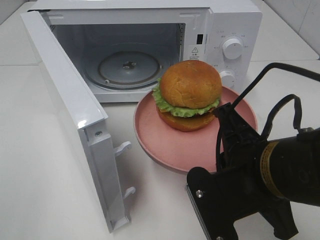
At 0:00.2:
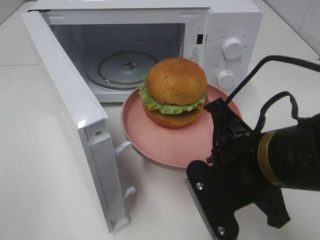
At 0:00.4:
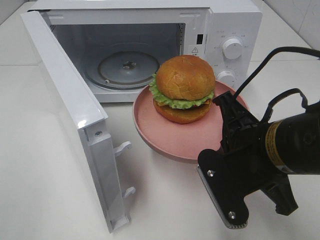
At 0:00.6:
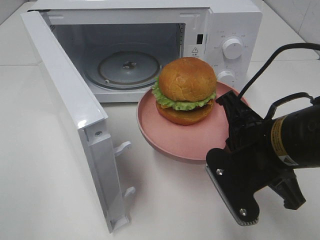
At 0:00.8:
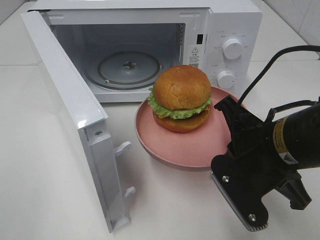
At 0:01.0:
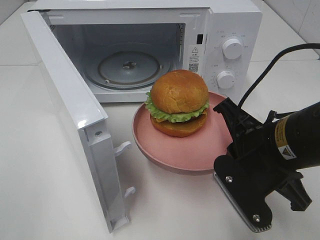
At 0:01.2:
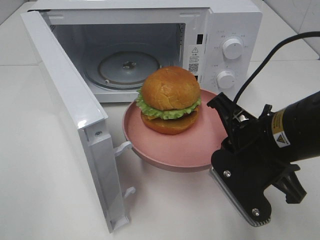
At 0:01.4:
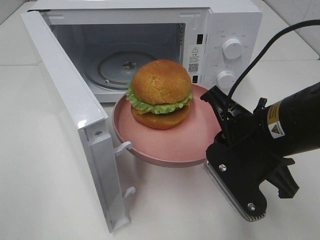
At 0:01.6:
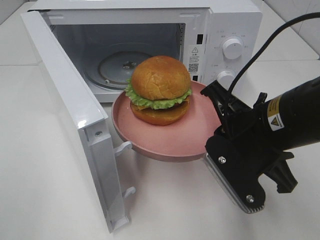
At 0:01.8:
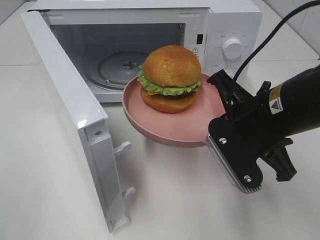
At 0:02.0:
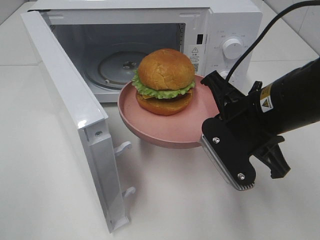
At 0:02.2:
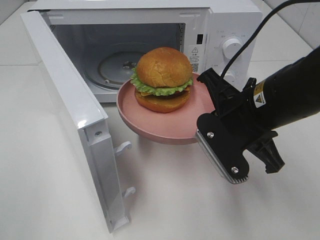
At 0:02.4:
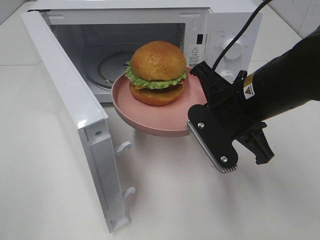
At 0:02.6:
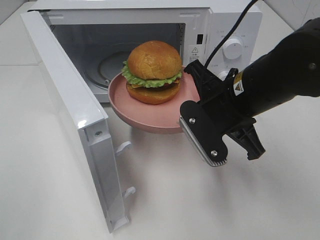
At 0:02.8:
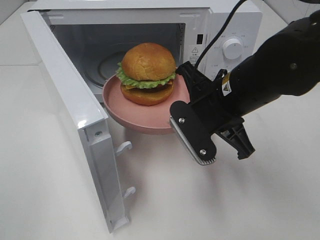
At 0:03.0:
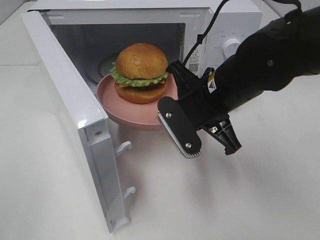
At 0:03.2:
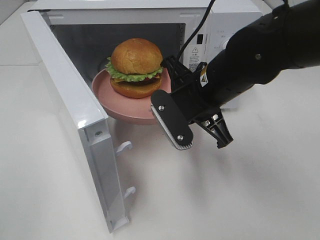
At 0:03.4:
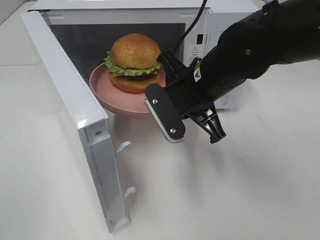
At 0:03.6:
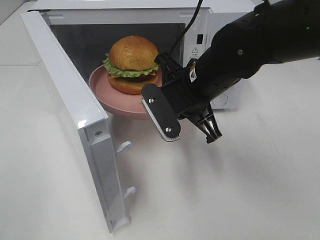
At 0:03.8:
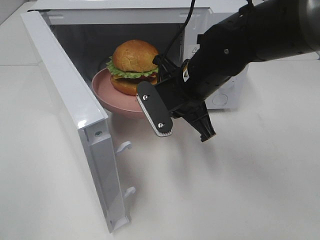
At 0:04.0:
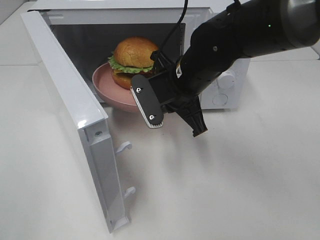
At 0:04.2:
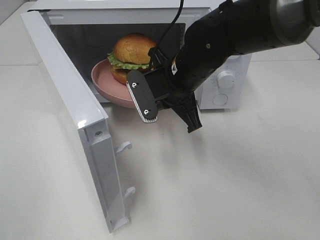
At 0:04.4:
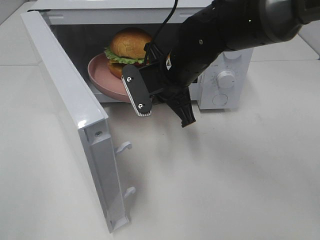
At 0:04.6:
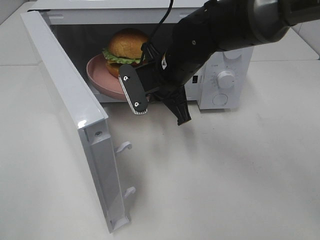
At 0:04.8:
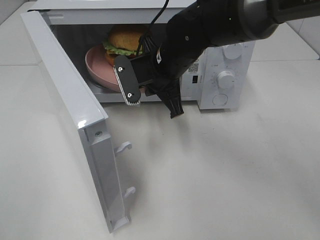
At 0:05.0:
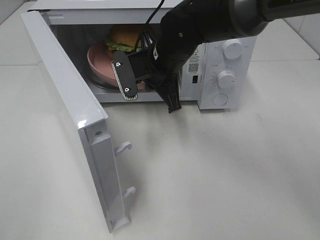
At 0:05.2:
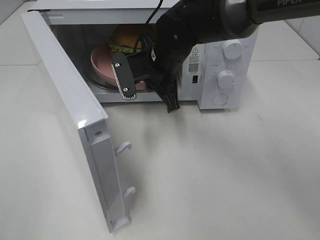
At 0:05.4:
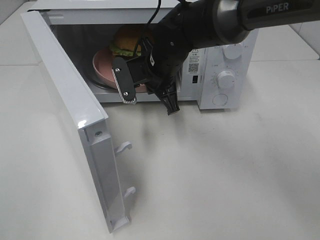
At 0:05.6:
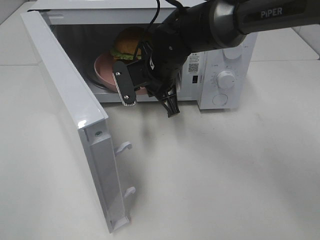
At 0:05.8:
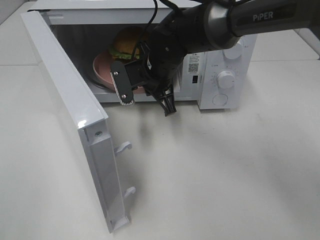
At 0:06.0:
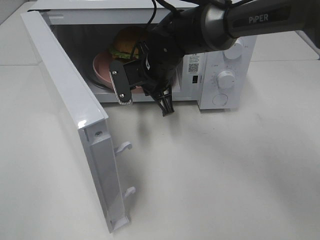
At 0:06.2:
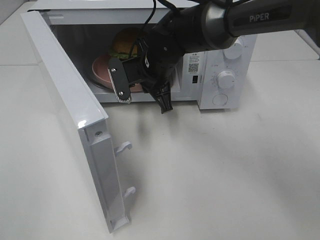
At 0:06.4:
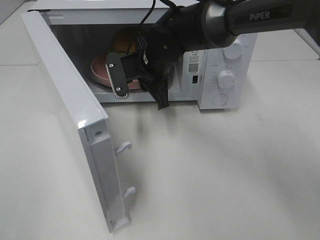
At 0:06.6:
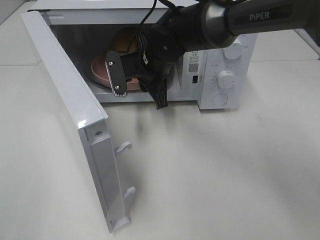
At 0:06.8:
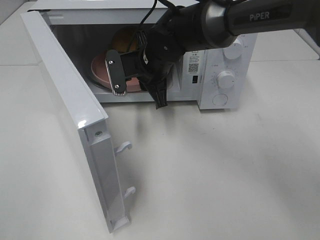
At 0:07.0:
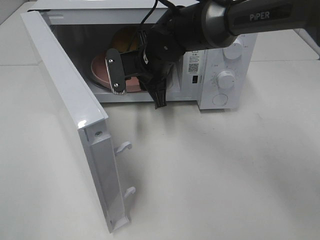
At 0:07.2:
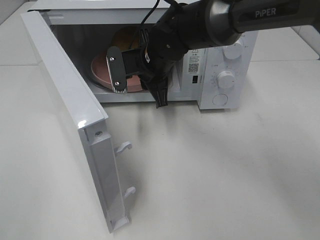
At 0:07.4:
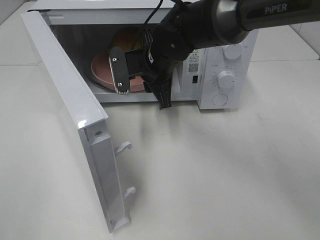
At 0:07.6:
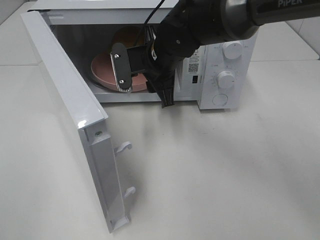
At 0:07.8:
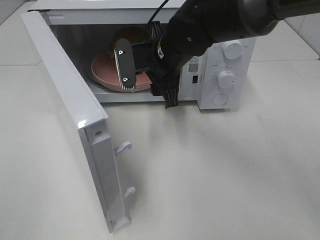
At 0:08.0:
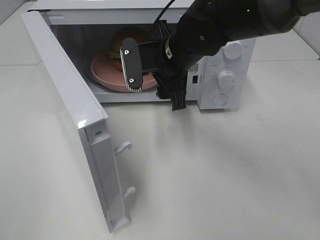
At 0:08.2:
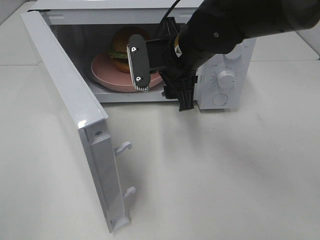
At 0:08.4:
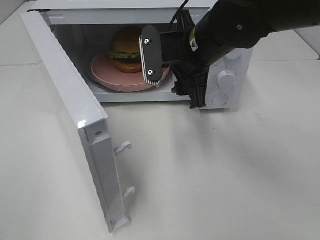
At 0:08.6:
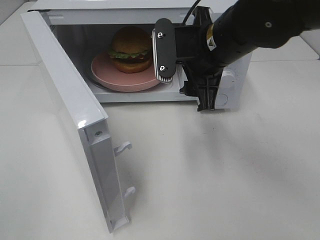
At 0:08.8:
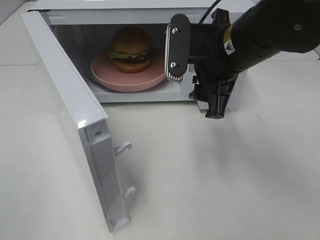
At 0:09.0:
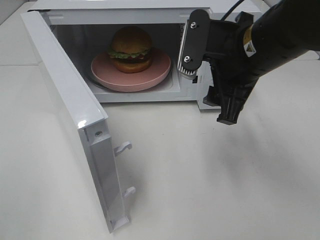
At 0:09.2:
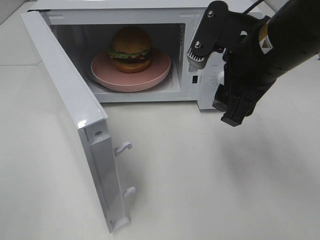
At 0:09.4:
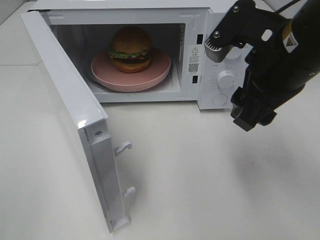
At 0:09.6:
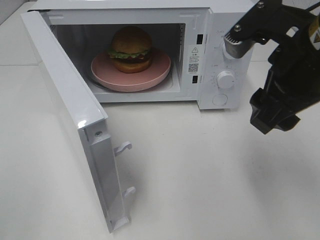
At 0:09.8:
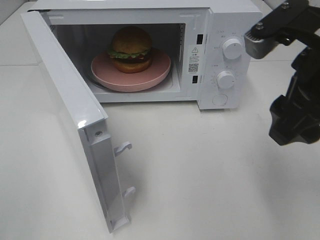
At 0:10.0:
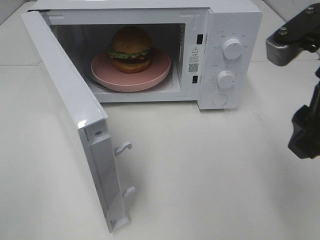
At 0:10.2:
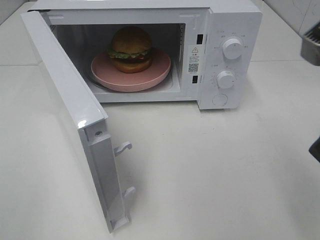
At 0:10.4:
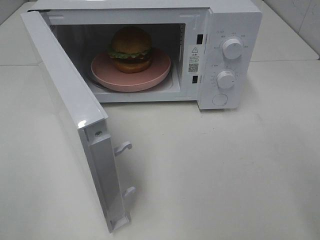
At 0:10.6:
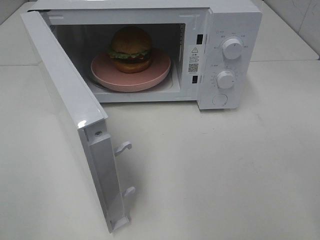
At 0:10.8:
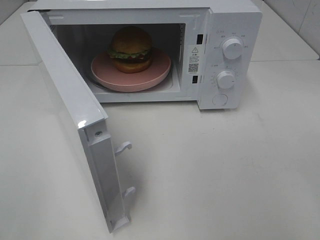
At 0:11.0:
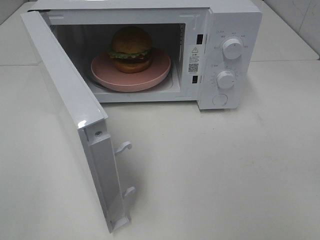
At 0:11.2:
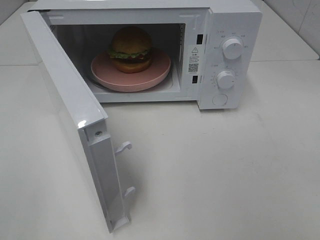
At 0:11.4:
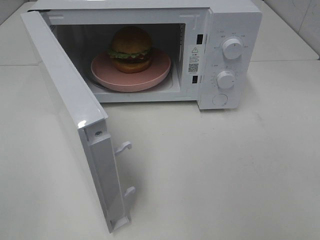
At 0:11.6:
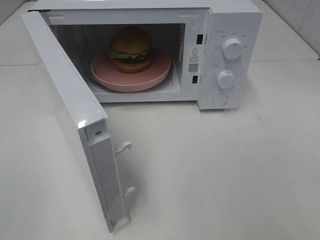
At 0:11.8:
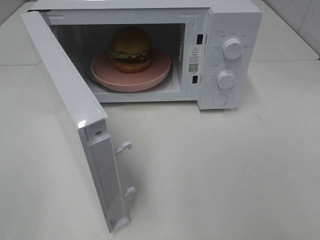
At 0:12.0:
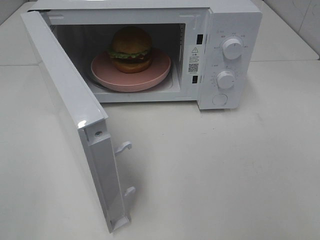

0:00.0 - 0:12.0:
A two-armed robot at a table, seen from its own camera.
Task of the whole recording: Heat the burger.
Step, 0:00.0 - 0:06.2: Right hand: place the plate in the microwave.
0:00.0 - 0:01.6: The right gripper moves forward, approximately 5 cm.
0:01.6 - 0:03.0: The right gripper heads forward, covering some 5 cm.
0:03.0 - 0:04.4: The right gripper moves forward and to the left, approximately 10 cm.
0:04.4 - 0:06.0: The right gripper moves forward, some 5 cm.
0:06.0 - 0:07.6: The right gripper opens.
0:07.6 - 0:09.0: The right gripper is displaced backward, to the right and upward by about 15 cm.
0:09.0 - 0:10.4: The right gripper is displaced backward, to the right and upward by roughly 20 cm.

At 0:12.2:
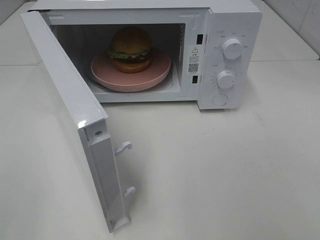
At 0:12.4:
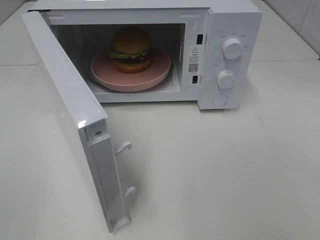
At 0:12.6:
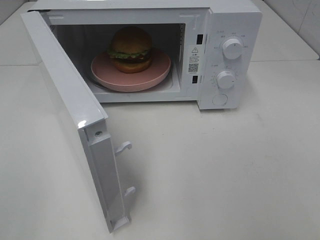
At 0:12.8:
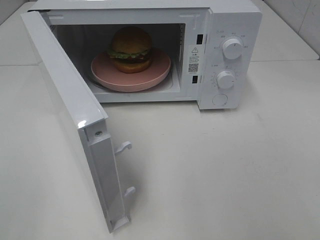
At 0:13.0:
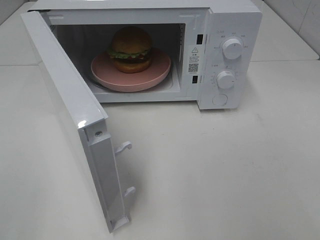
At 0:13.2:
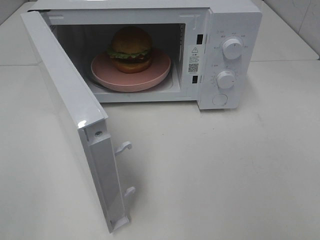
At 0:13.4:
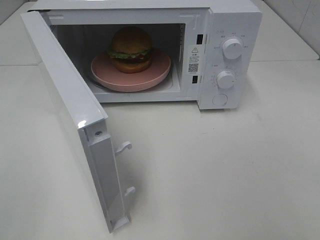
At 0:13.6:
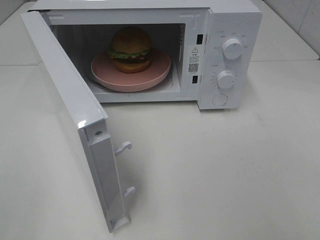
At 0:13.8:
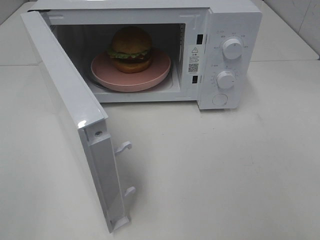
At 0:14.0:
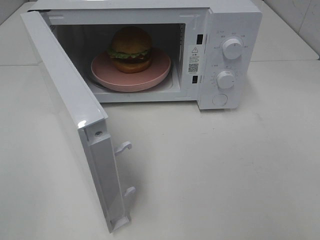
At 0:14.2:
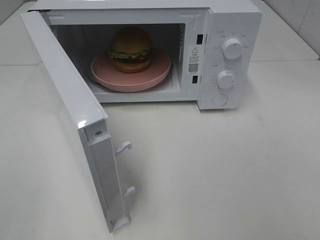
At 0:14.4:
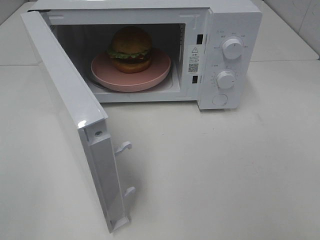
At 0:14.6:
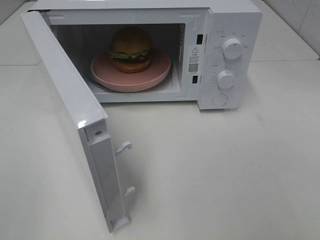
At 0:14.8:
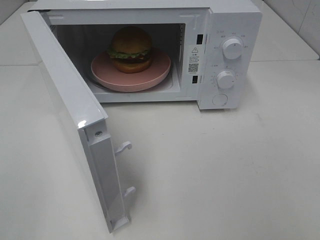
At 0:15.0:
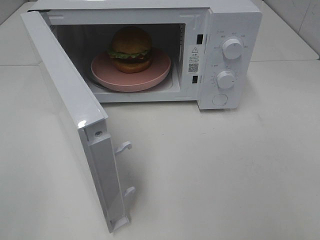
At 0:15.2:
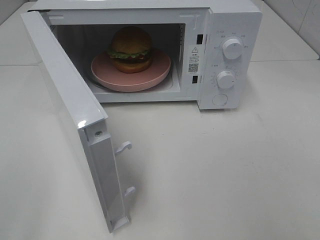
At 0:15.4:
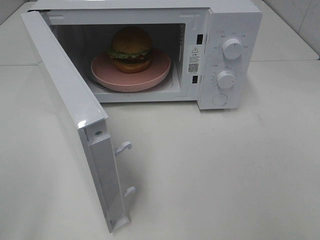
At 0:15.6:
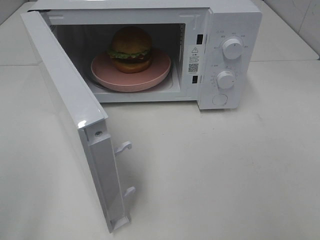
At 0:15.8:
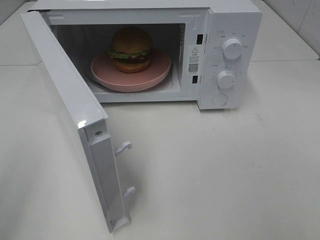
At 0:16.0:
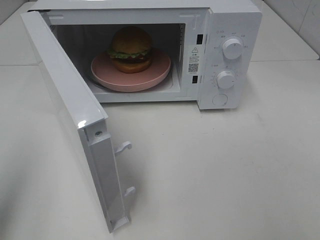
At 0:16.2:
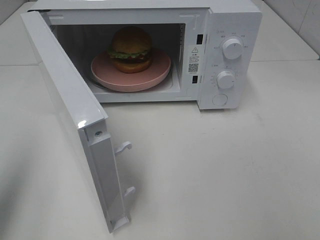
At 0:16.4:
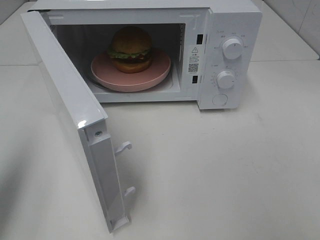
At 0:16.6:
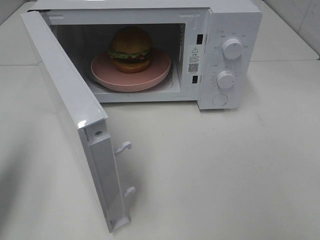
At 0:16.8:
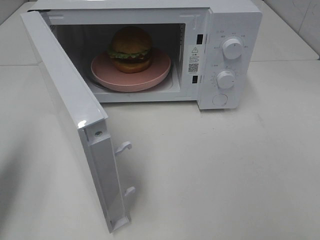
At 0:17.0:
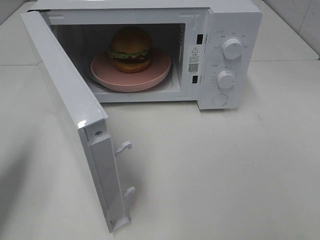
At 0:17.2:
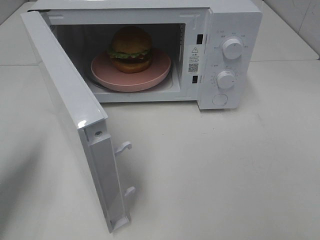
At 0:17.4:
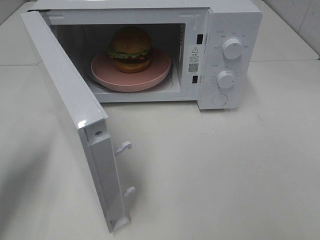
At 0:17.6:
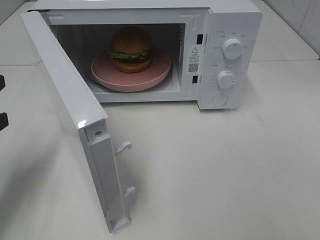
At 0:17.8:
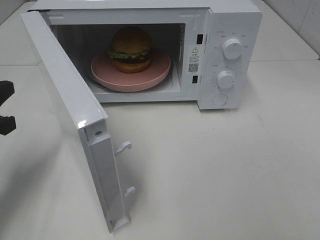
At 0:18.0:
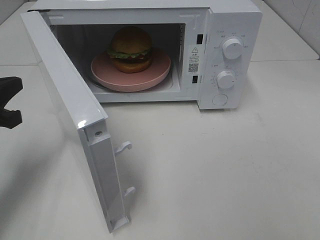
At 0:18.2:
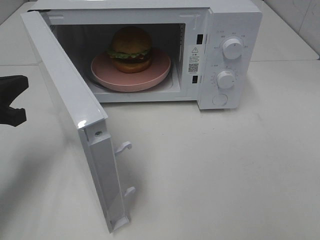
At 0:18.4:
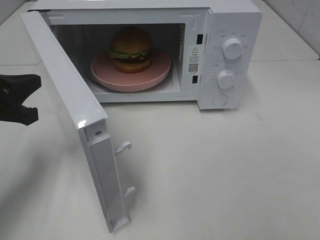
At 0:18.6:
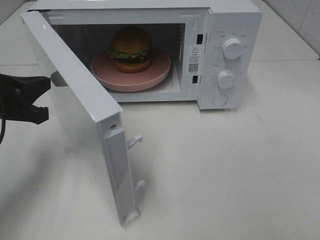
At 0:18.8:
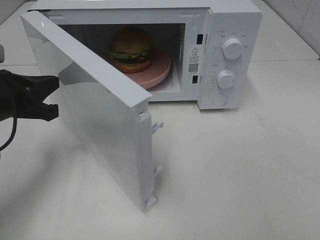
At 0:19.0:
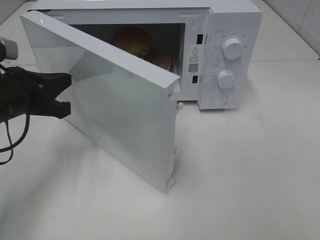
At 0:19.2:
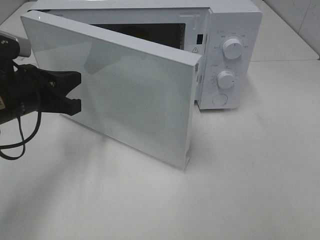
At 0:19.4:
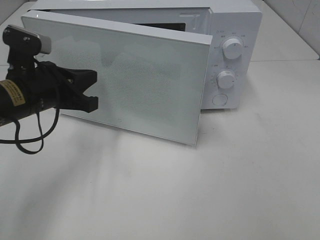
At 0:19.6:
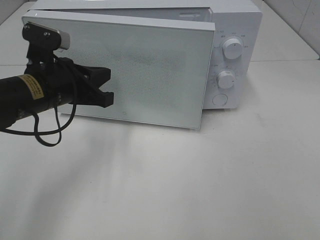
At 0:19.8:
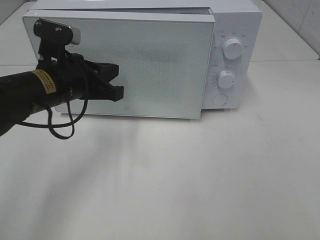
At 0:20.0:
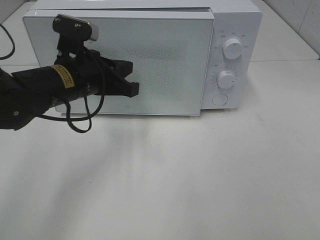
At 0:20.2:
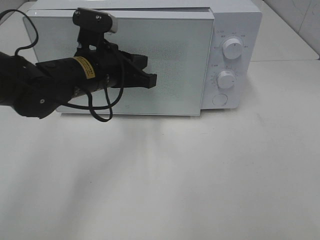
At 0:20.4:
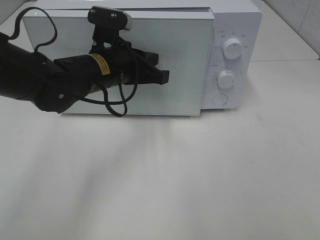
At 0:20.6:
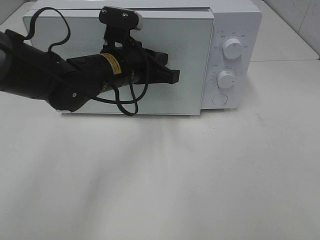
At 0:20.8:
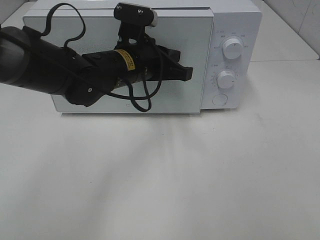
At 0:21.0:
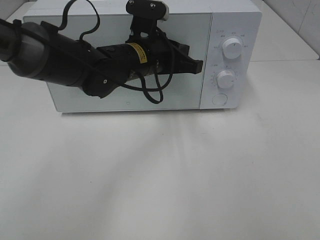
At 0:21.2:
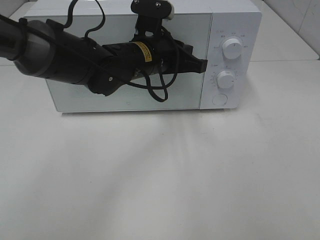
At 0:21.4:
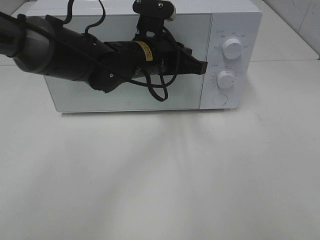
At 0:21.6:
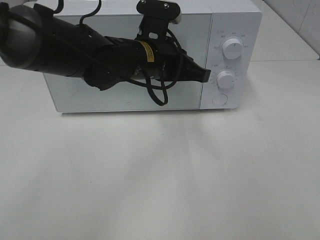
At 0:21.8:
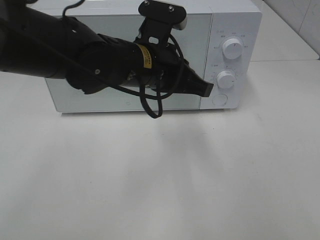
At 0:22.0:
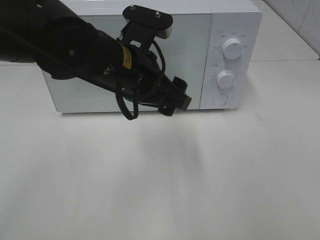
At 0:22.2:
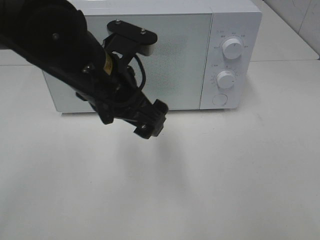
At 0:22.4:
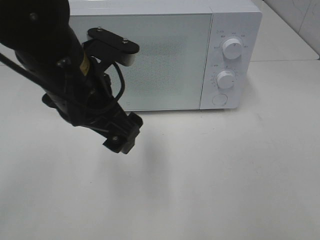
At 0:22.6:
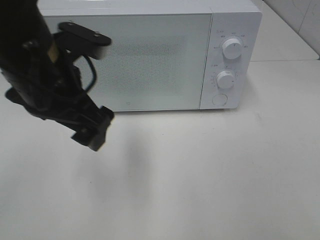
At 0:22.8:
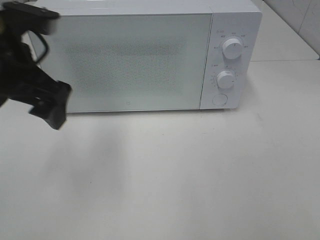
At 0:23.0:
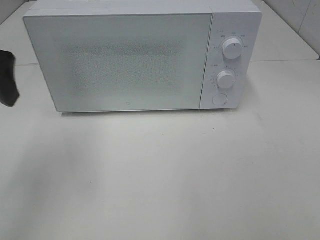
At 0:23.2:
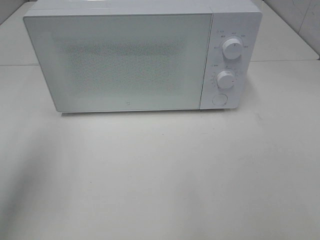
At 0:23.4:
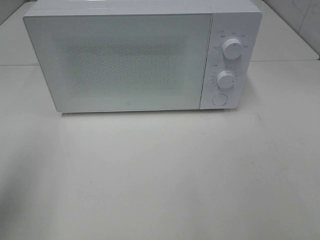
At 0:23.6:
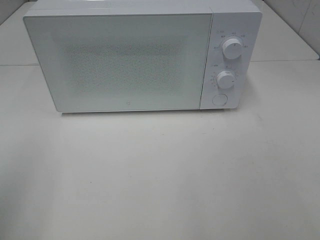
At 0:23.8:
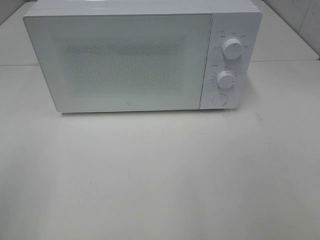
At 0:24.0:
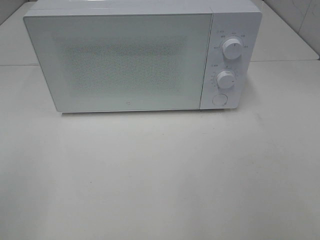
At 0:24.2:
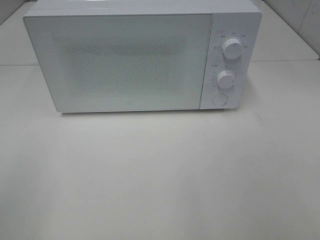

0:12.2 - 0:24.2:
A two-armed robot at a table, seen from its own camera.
Task of the whole recording: Heat the burger.
Step, 0:12.2 - 0:21.4: Left hand: close the microwave door.
0:12.2 - 0:13.8: Neither gripper changes place.
0:15.2 - 0:16.6: The left gripper shifts some 15 cm forward, and closes.
0:16.6 - 0:18.2: The left gripper goes about 15 cm downward and forward.
0:18.2 - 0:19.8: The left gripper goes approximately 15 cm to the right and forward.
0:19.8 - 0:21.2: The left gripper shifts approximately 15 cm to the right and forward.
0:21.2 - 0:22.6: The left gripper goes some 20 cm backward, to the left and upward, and opens.
0:22.6 - 0:24.2: The left gripper moves backward and to the left, approximately 25 cm.
